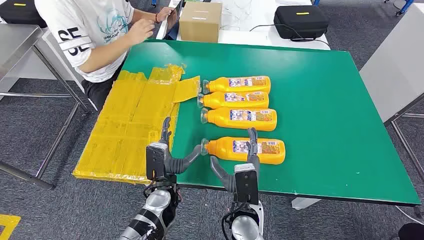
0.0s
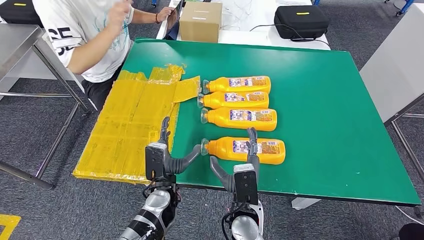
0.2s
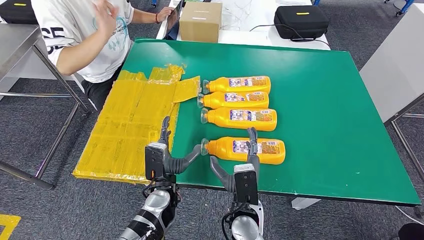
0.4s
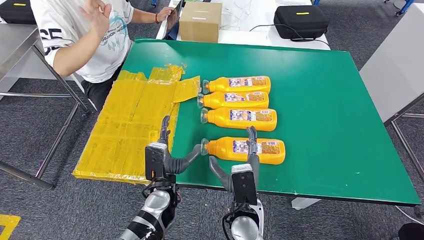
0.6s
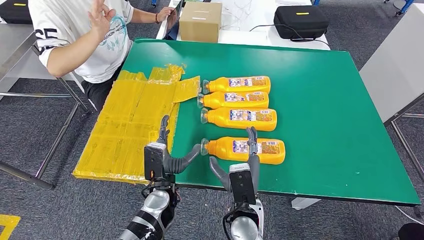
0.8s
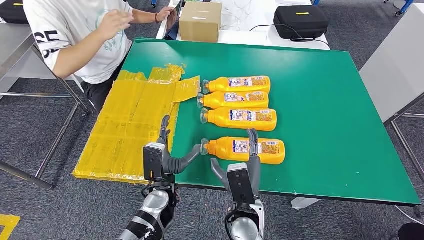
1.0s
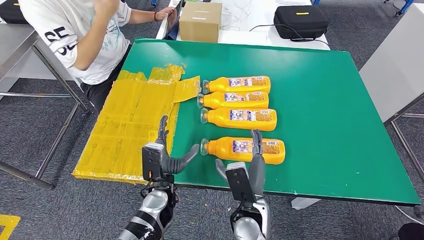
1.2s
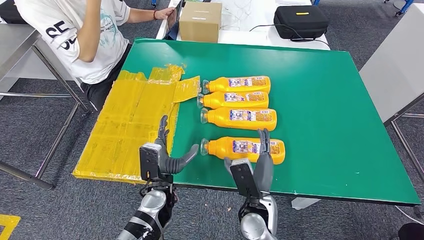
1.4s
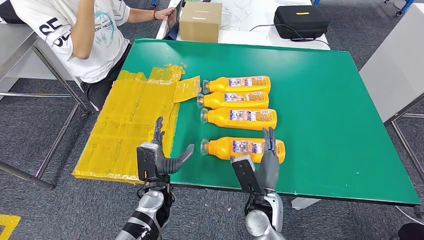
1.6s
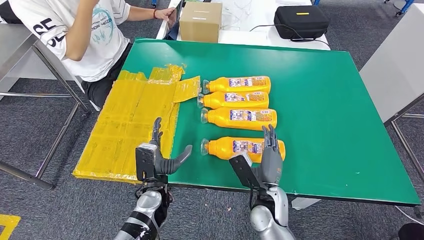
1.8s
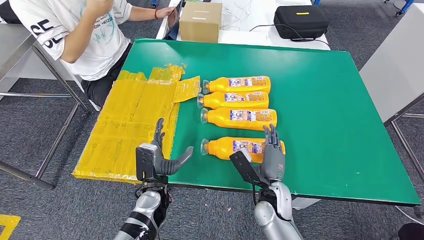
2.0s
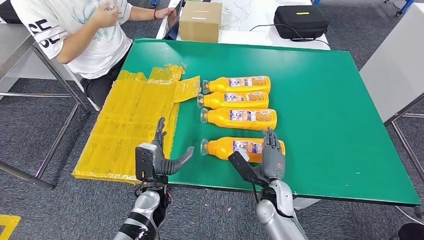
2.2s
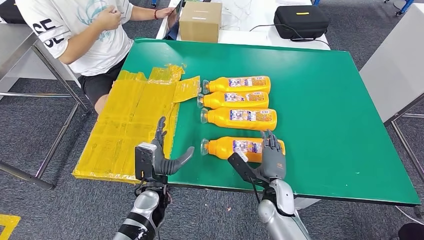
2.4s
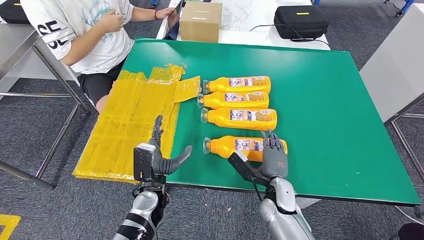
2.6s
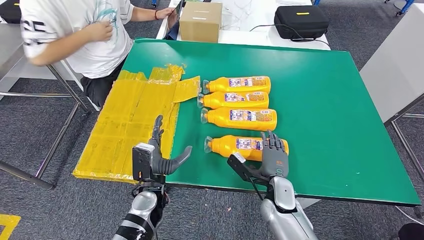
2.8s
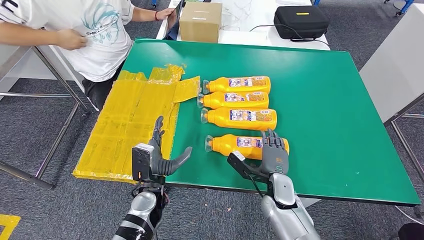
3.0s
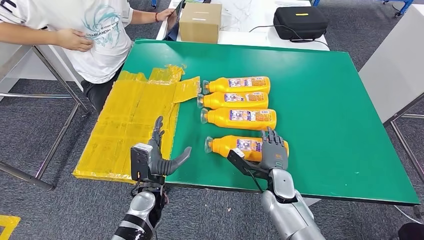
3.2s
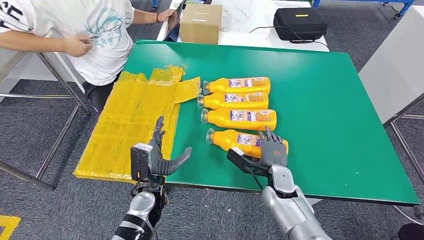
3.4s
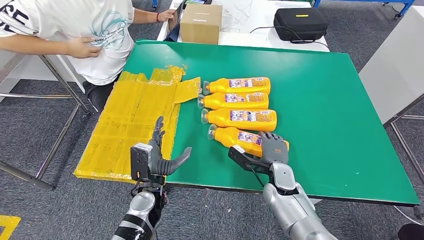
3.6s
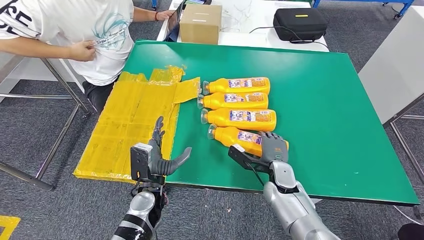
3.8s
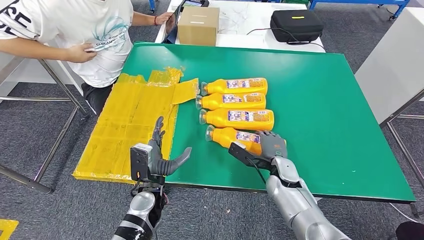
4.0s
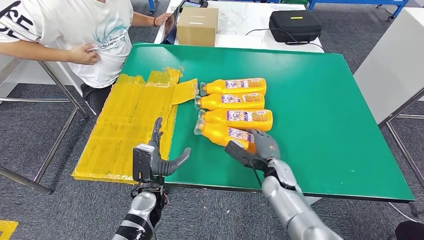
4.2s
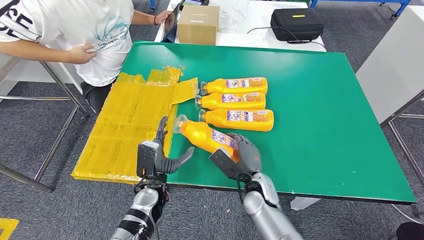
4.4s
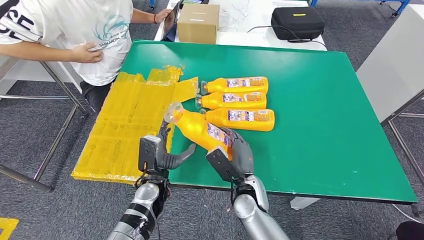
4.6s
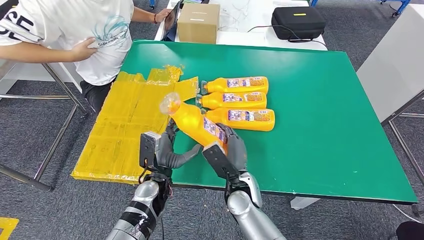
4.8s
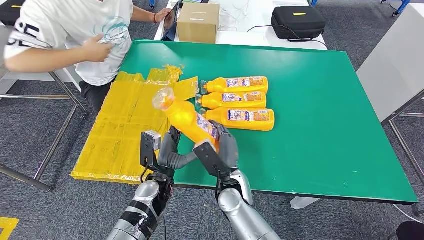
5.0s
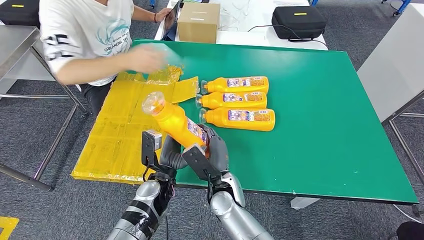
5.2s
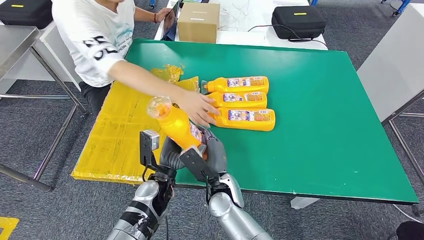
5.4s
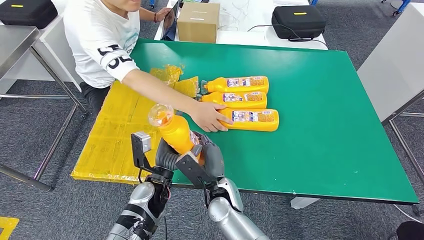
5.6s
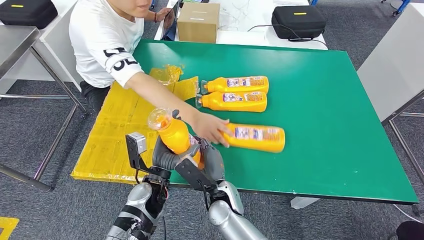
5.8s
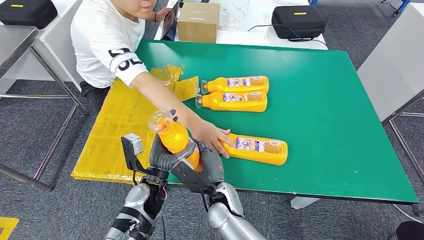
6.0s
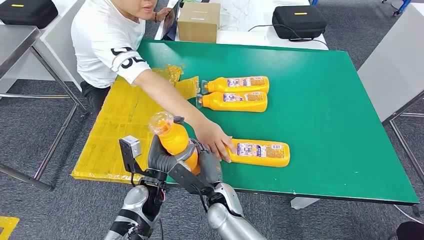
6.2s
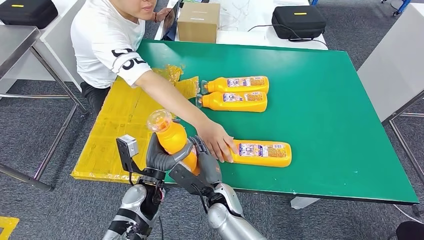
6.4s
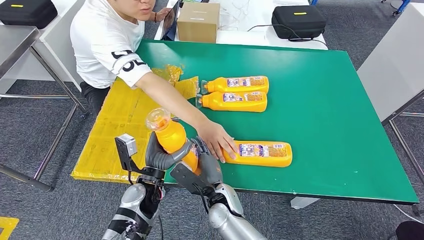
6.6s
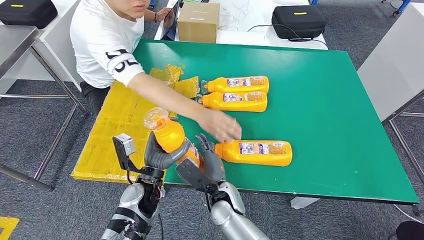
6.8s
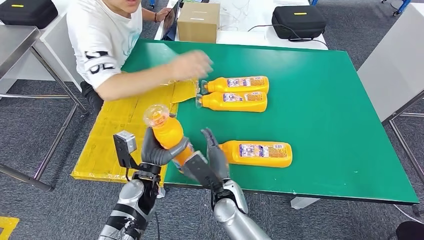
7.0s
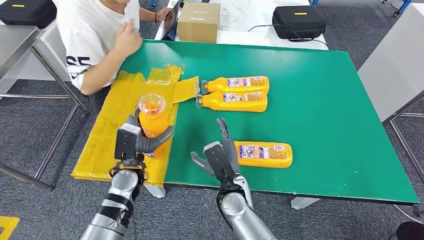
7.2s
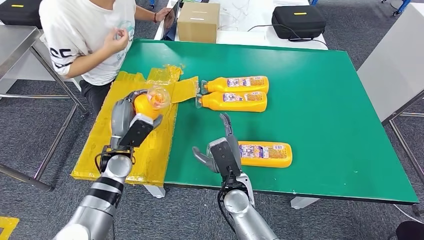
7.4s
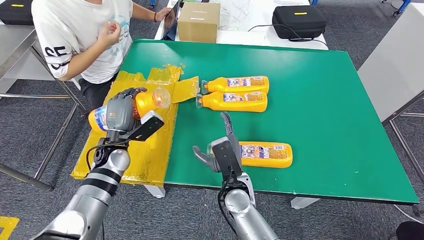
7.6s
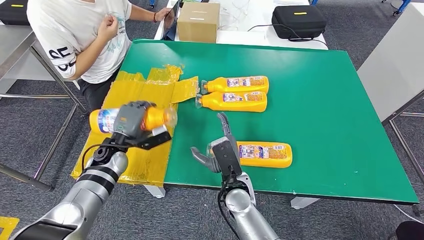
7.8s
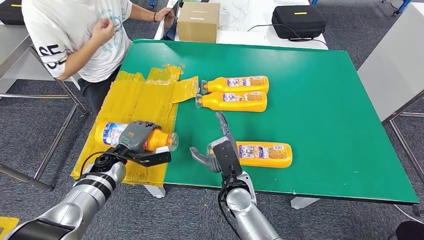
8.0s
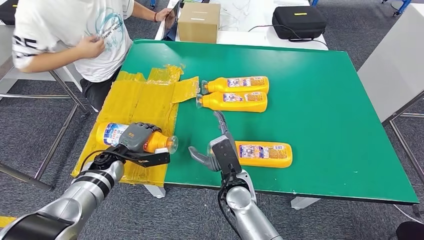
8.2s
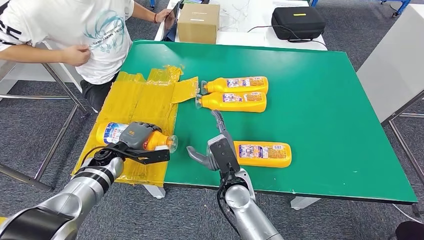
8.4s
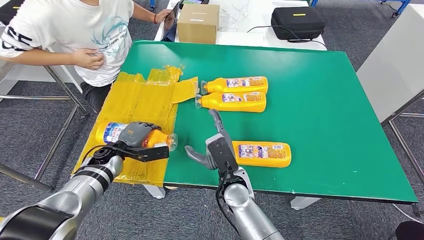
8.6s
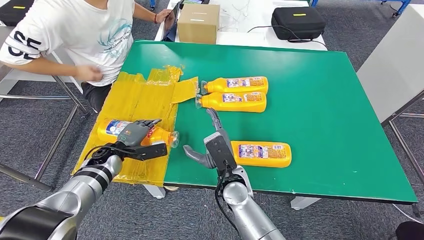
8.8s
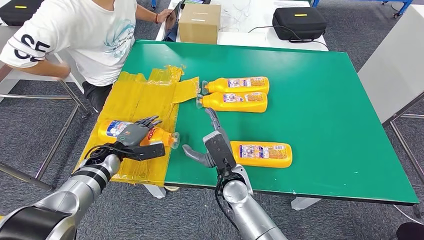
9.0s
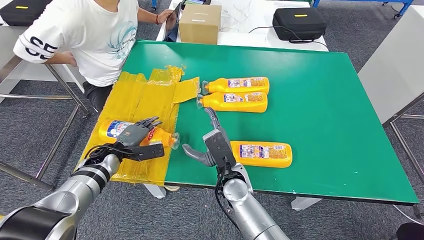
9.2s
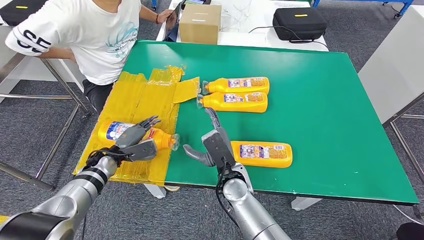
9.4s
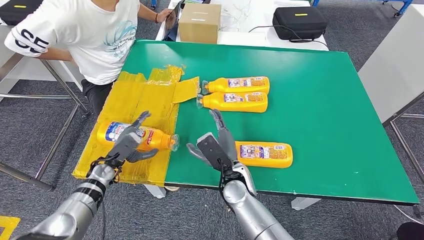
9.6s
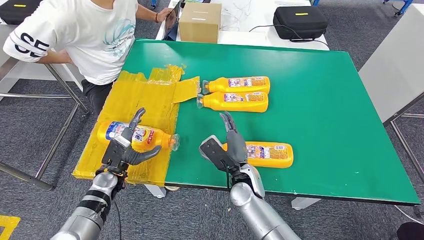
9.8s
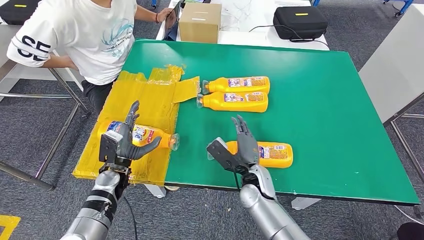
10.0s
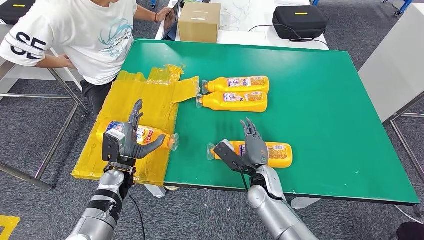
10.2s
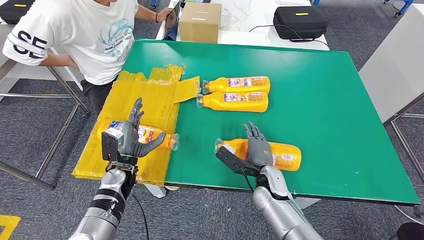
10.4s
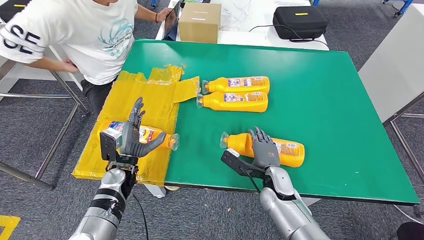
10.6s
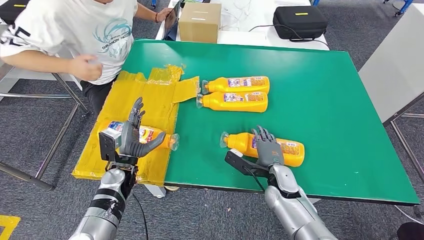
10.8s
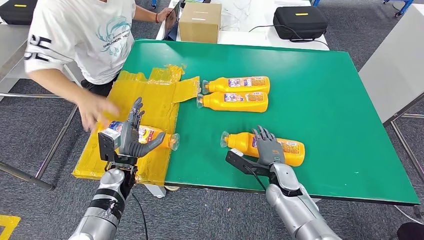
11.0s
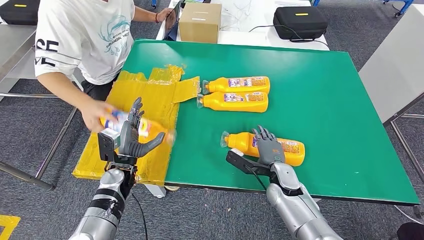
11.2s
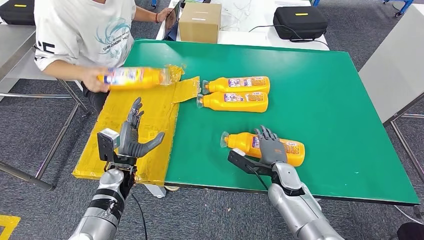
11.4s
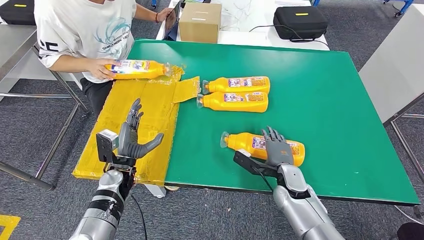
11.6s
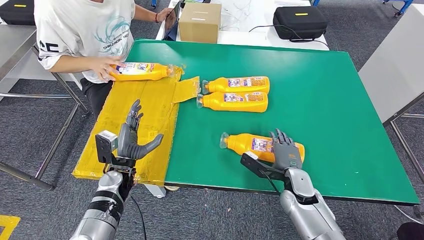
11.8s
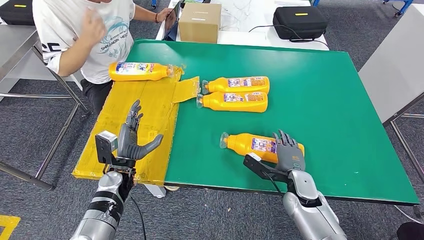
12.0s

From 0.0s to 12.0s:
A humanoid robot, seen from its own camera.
Step, from 0.0s to 5.2s: Take the fast-moving consumer goods bottle from the table.
Step, from 5.8s to 9.6s: Flip the fast-moving consumer goods bottle to the front side.
From 1.6s to 3.0s: The right hand is displaced forward and to the right by roughly 10 cm.
From 10.4s to 12.0s: The right hand is displaced to the right by about 10 cm.

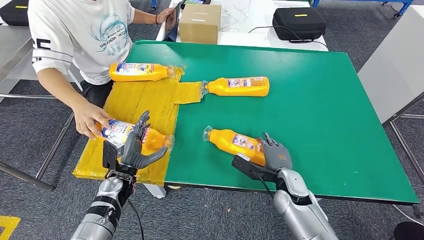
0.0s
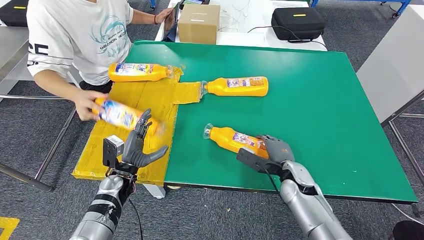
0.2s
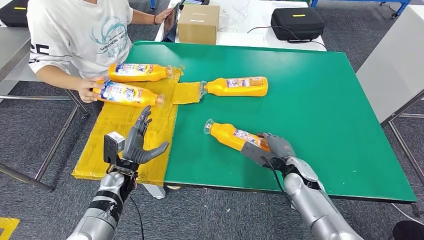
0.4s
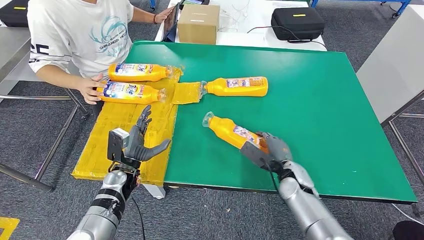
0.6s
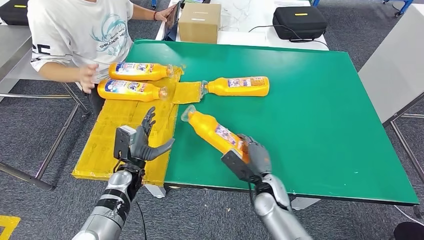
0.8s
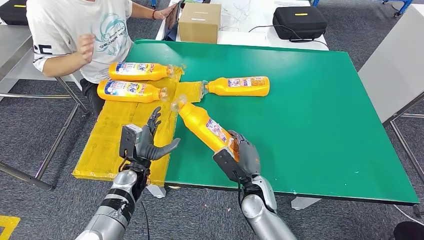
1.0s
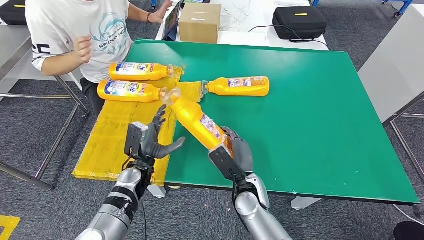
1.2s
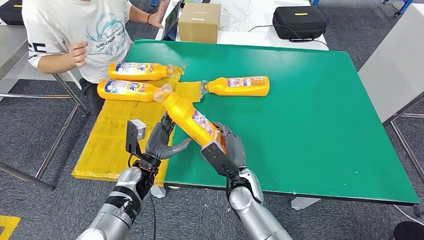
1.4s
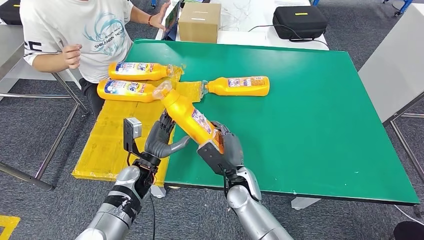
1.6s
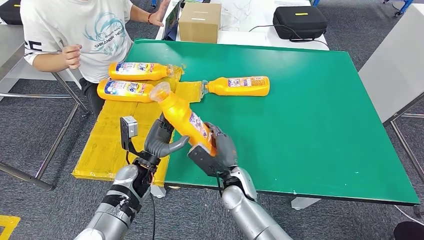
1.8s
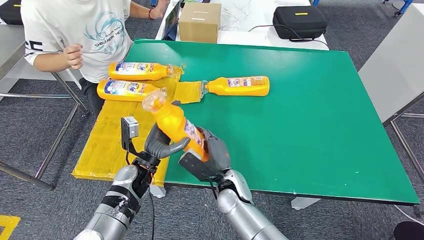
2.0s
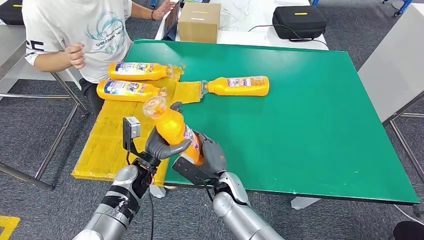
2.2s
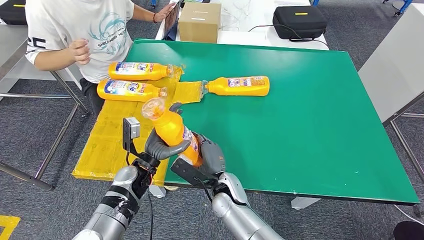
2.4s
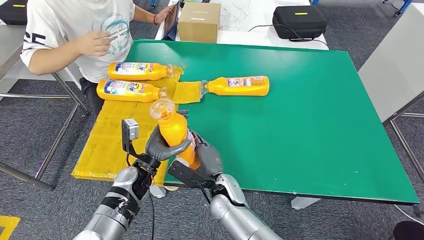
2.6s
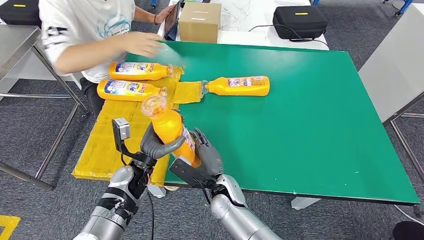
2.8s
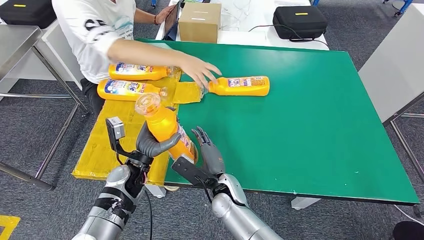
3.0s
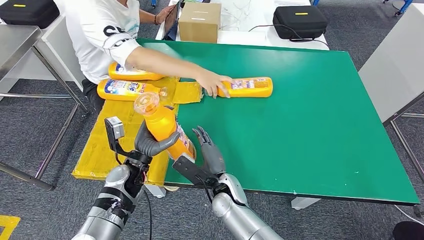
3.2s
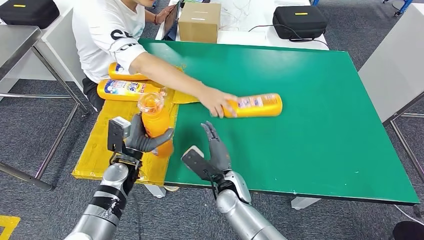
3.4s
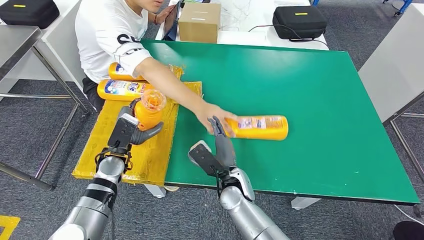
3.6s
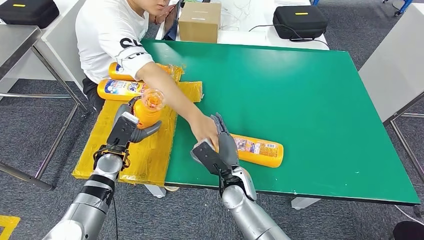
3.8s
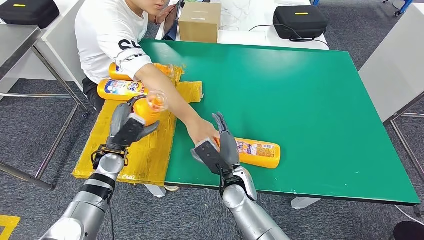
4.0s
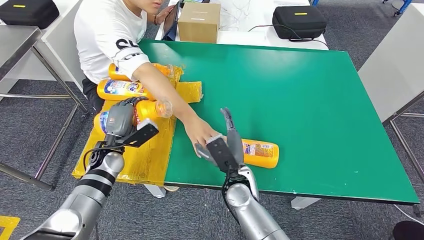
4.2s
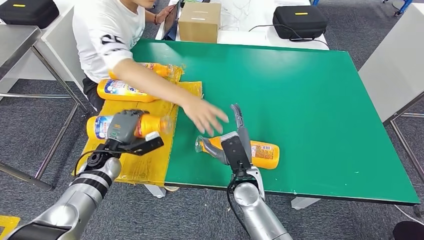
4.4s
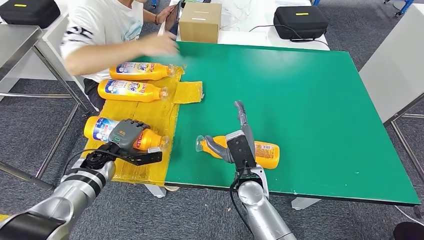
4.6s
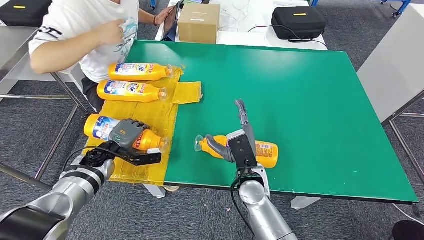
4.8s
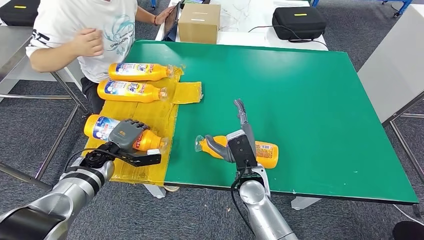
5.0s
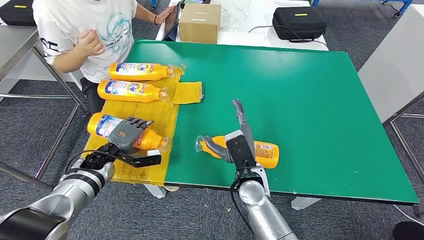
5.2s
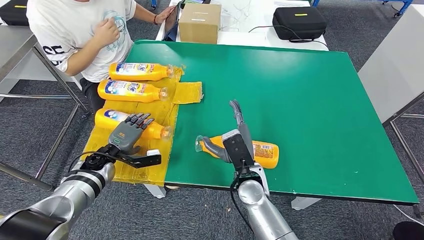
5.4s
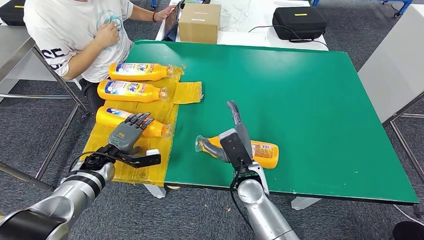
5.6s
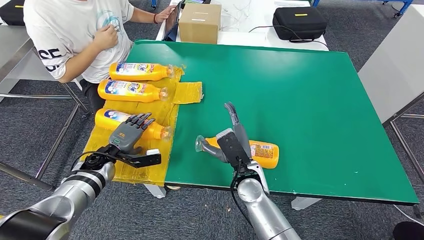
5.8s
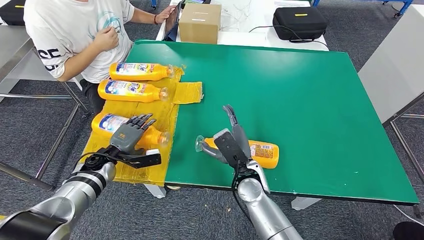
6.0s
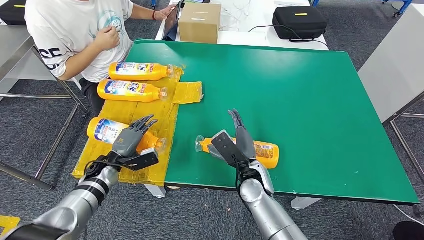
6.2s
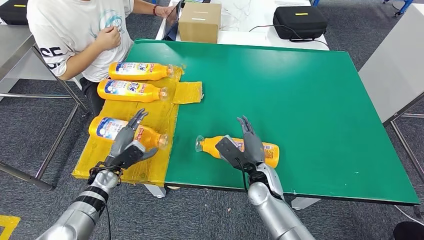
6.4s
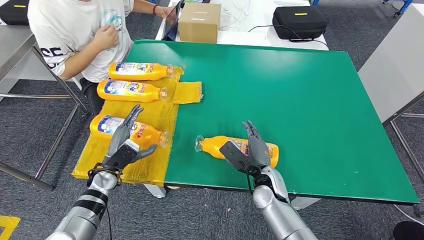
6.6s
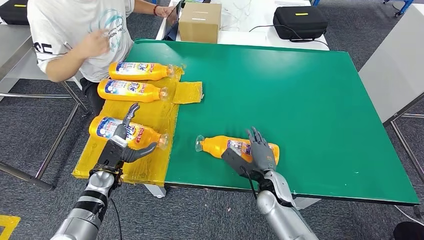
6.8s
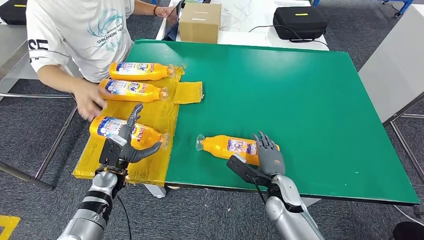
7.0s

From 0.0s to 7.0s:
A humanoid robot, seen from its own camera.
Step, from 1.0s to 3.0s: Pick up the fast-moving consumer goods bottle from the table.
Step, from 3.6s to 6.6s: Flip the fast-moving consumer goods bottle to the front side.
From 1.4s to 2.8s: The right hand moves roughly 5 cm.
